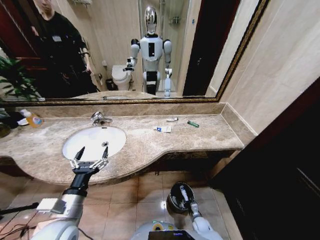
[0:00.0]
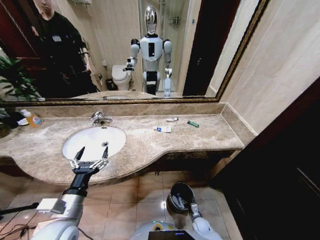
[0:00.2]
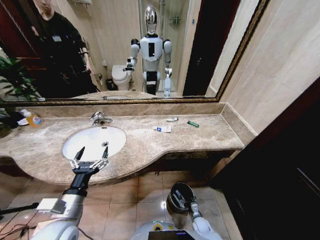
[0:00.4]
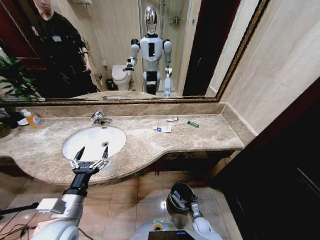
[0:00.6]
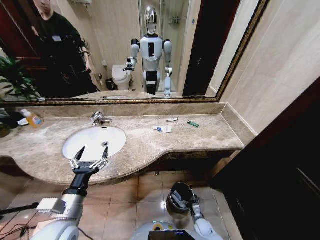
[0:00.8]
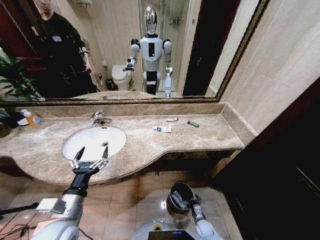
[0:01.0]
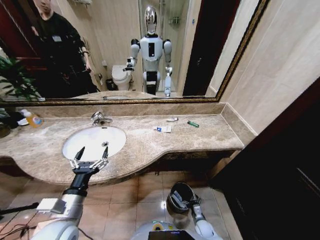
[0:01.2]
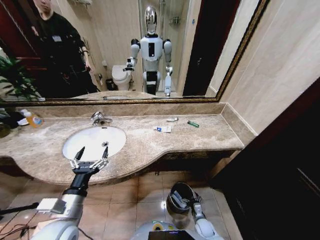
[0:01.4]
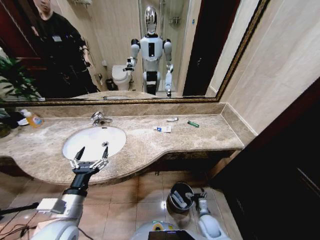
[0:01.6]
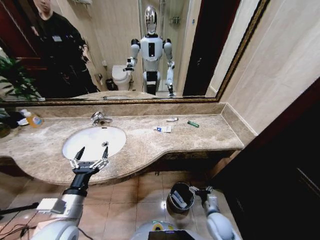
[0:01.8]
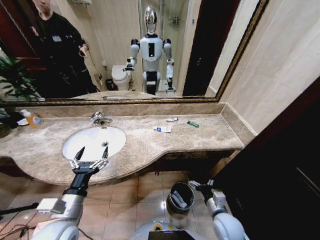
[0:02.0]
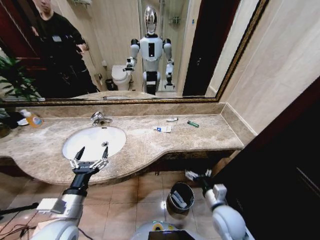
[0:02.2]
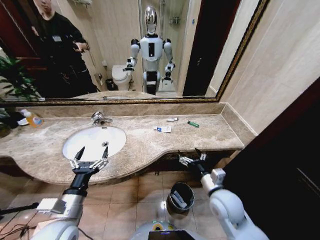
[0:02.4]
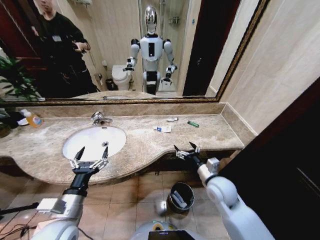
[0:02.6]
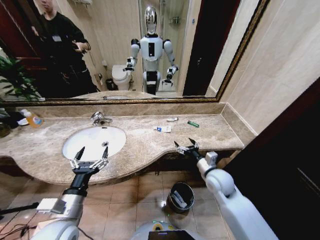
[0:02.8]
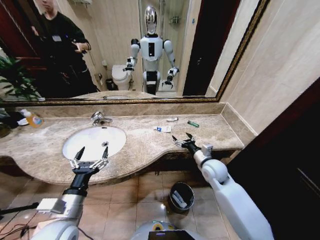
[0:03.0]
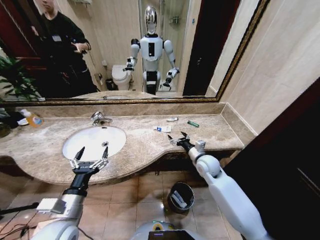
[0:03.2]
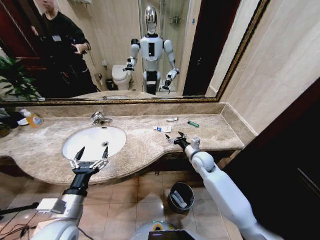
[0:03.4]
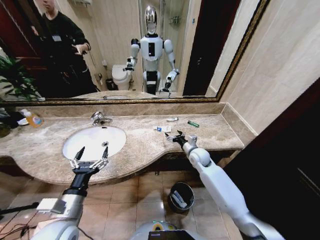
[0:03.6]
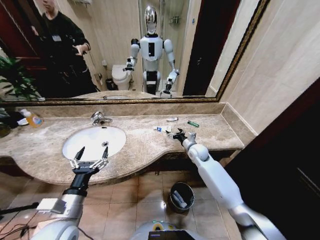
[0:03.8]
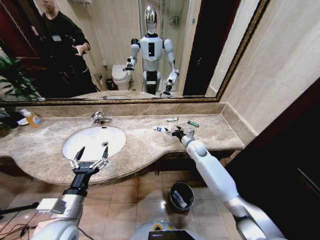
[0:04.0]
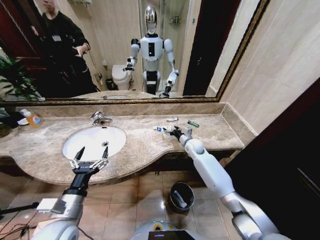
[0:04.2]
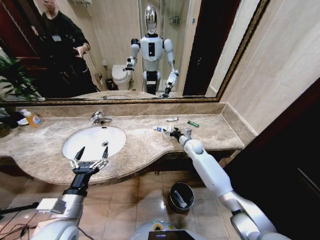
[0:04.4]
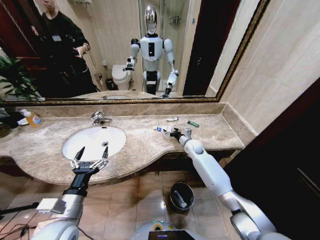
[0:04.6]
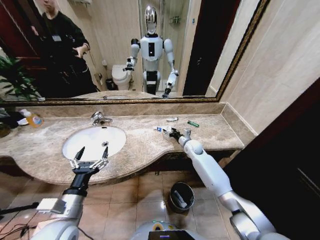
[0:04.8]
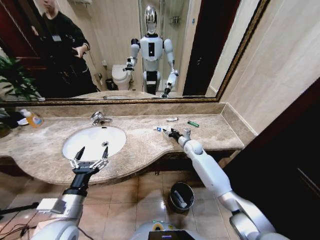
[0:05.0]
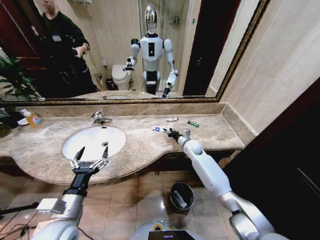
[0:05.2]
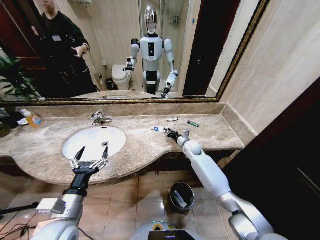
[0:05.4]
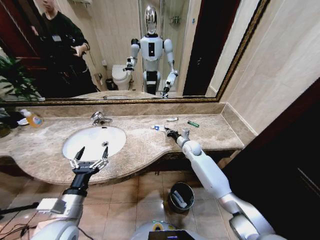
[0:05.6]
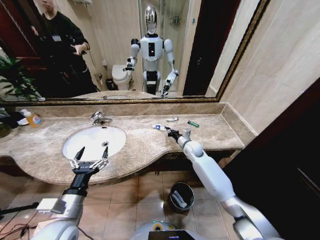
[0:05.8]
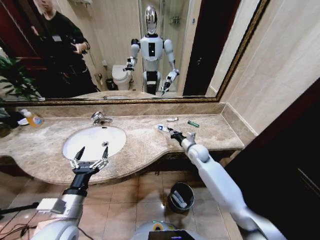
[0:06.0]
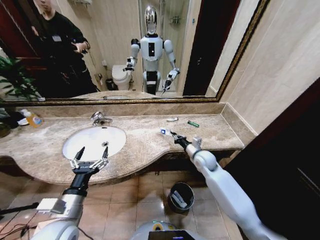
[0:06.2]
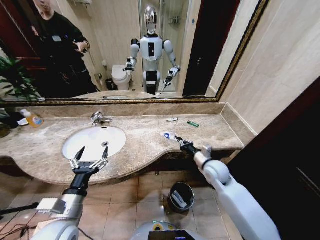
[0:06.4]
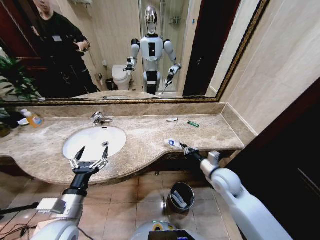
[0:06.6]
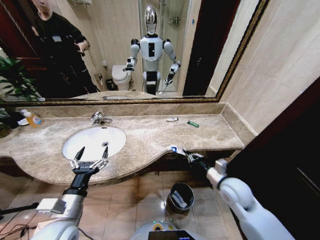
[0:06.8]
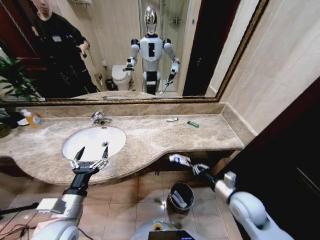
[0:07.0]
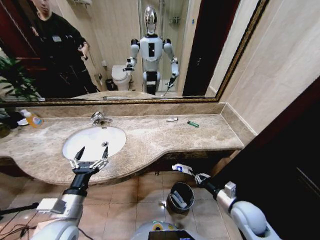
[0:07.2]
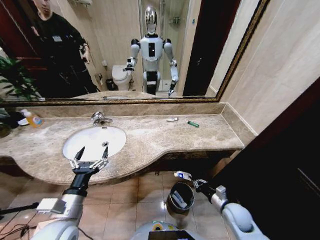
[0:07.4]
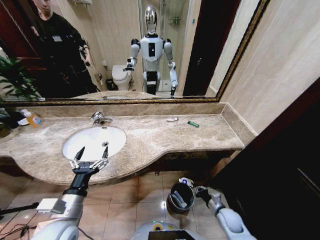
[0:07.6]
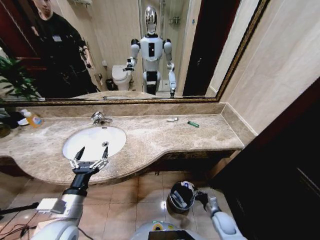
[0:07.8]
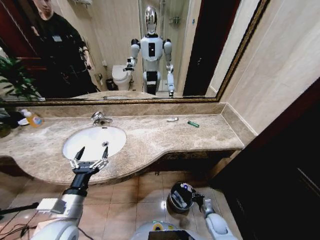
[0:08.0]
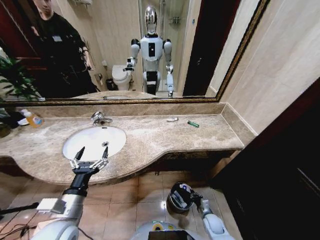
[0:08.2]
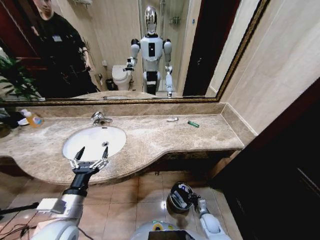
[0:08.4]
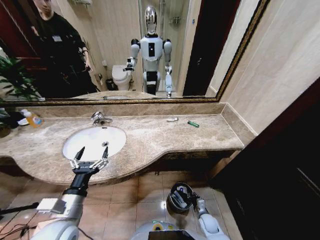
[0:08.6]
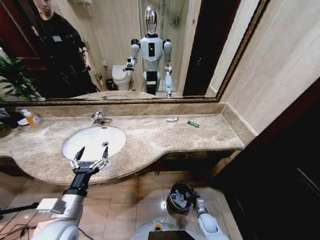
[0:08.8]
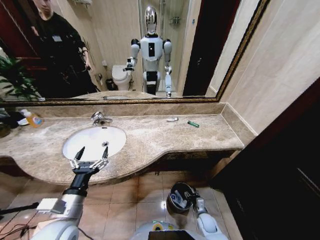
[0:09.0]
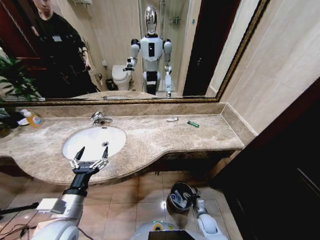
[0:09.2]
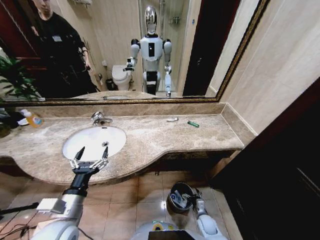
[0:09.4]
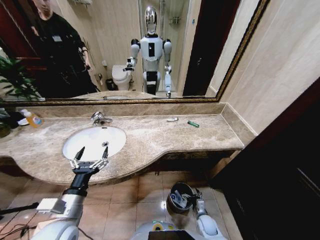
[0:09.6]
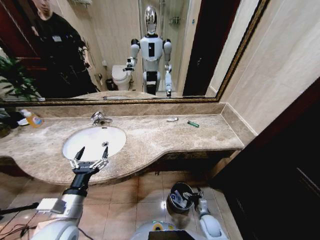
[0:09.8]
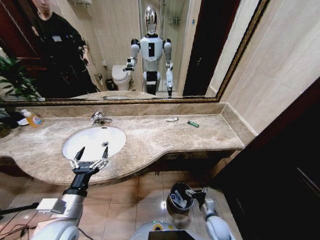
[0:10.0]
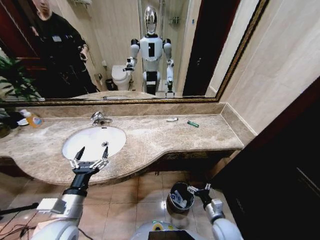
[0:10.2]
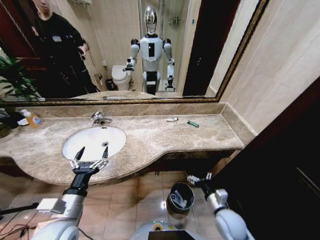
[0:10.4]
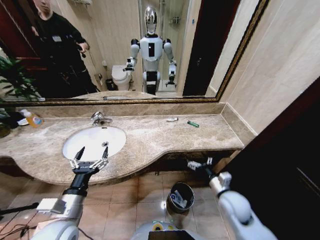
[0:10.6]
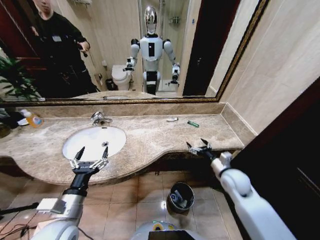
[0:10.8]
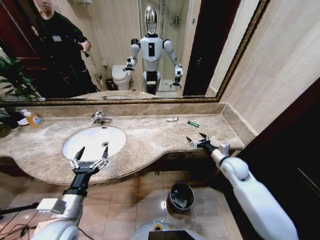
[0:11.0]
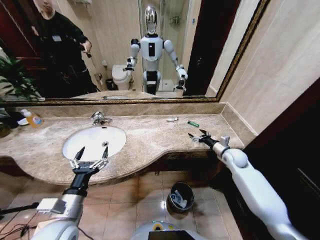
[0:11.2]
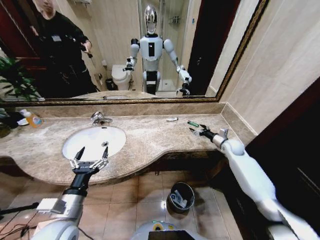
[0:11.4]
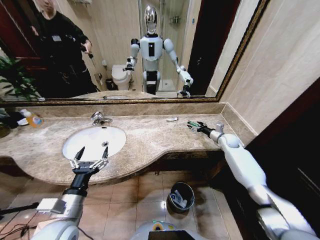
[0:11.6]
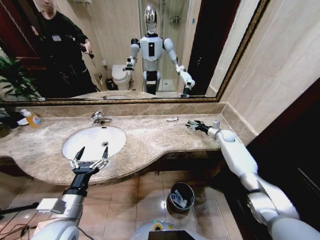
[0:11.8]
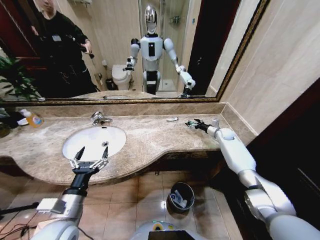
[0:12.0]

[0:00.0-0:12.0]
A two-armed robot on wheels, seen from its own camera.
Task of the whole recording: Pick up the trash from the sink and place it in the trash bin.
0:00.0 to 0:01.6: The right gripper moves upward, some 10 cm, and opens.
0:01.6 to 0:03.0: The right gripper is displaced upward and forward by some 30 cm.
0:03.0 to 0:04.4: The right gripper travels forward by some 15 cm.
0:04.4 to 0:06.0: The right gripper goes roughly 5 cm backward, and closes its fingers.
0:06.0 to 0:07.6: The right gripper shifts some 35 cm backward, downward and to the right.
0:07.6 to 0:09.0: The right gripper is displaced downward and to the left by about 15 cm, and opens.
0:09.0 to 0:10.4: The right gripper moves upward, about 20 cm, and opens up.
0:10.4 to 0:12.0: The right gripper shifts some 40 cm forward and to the right.

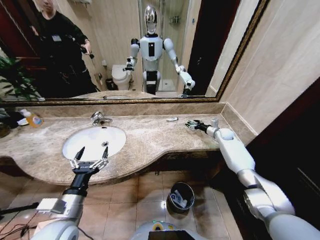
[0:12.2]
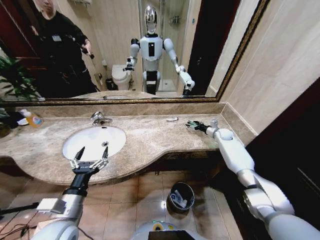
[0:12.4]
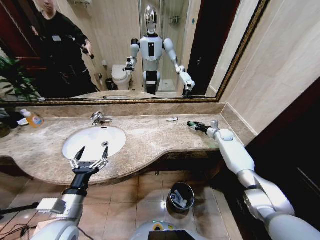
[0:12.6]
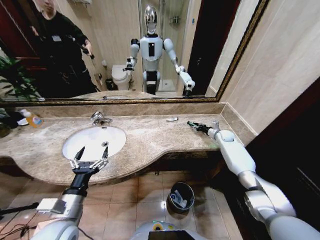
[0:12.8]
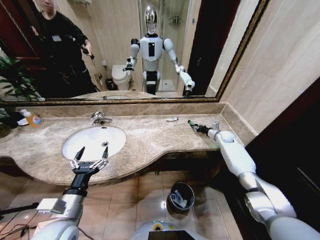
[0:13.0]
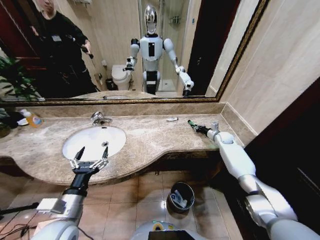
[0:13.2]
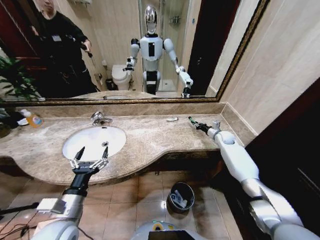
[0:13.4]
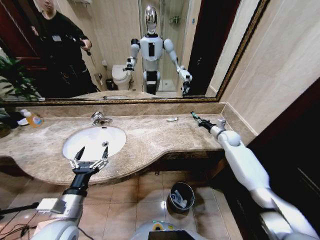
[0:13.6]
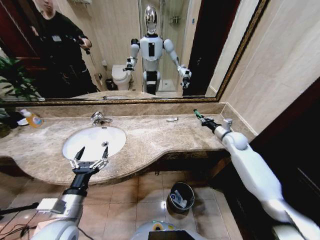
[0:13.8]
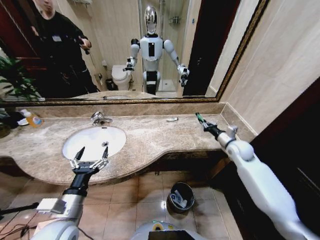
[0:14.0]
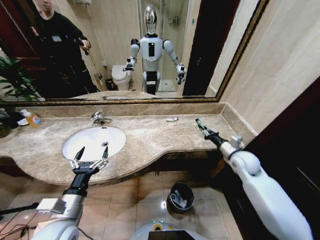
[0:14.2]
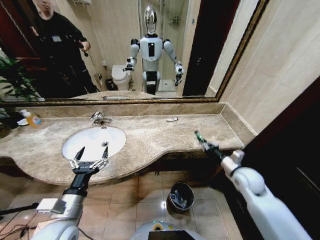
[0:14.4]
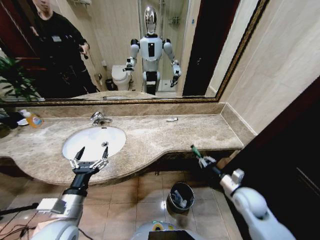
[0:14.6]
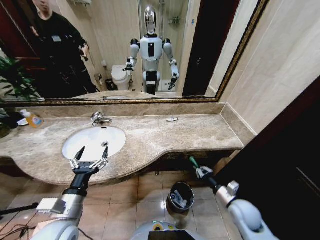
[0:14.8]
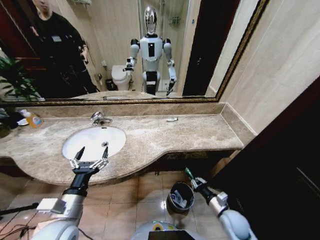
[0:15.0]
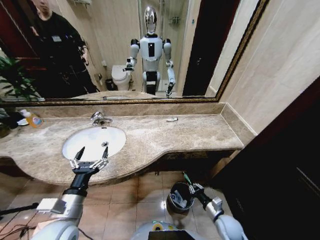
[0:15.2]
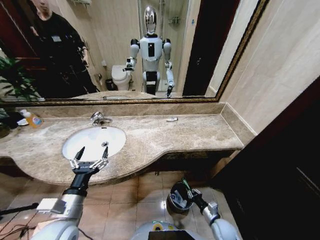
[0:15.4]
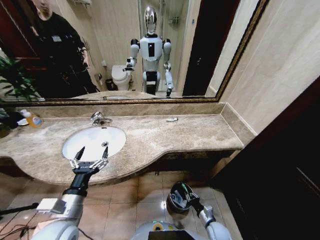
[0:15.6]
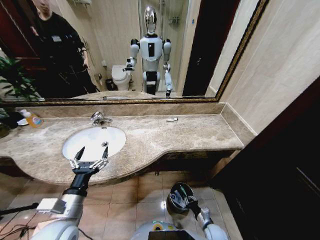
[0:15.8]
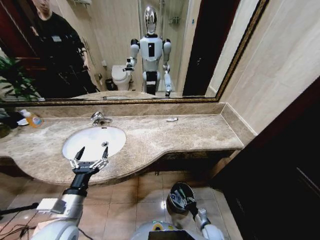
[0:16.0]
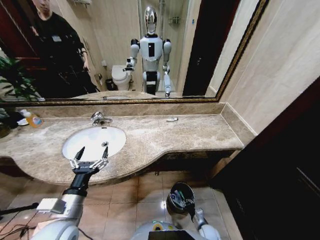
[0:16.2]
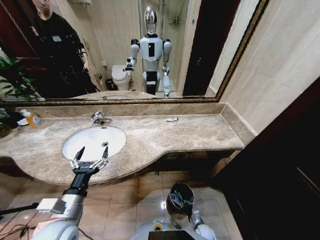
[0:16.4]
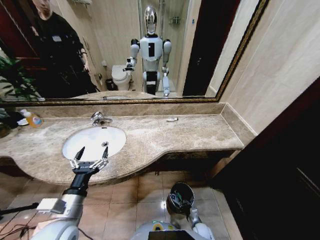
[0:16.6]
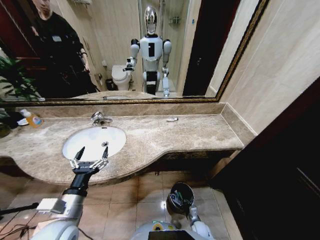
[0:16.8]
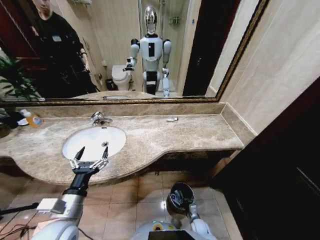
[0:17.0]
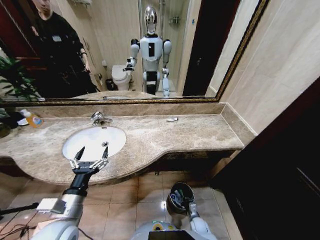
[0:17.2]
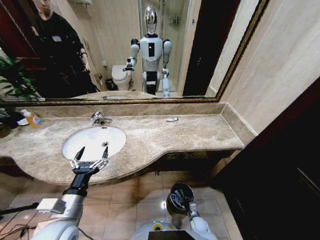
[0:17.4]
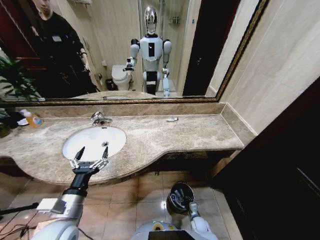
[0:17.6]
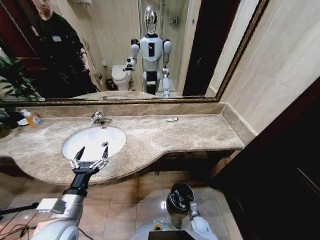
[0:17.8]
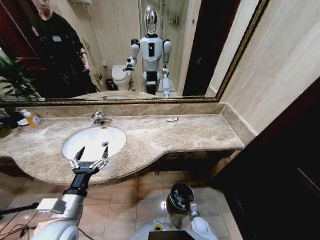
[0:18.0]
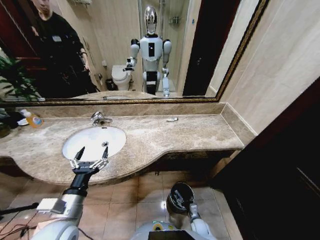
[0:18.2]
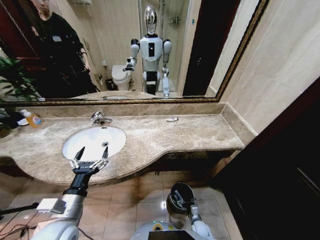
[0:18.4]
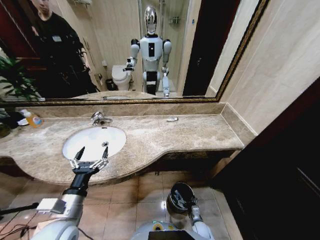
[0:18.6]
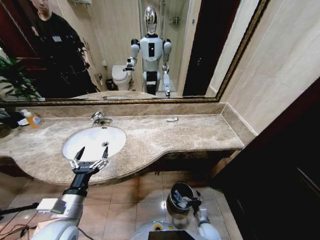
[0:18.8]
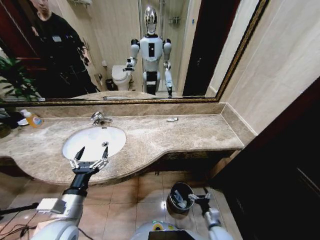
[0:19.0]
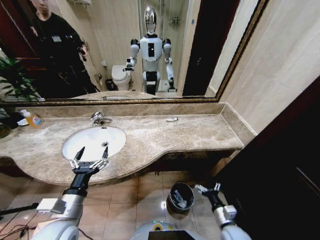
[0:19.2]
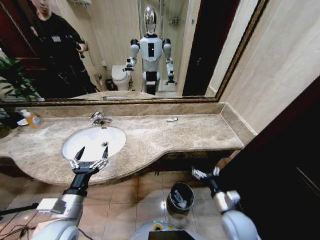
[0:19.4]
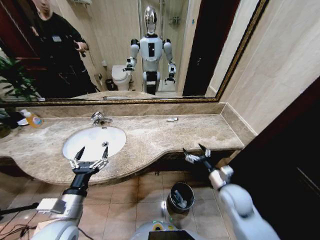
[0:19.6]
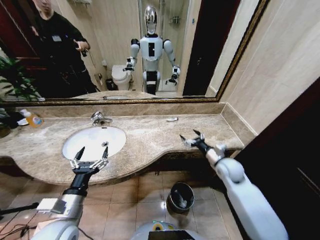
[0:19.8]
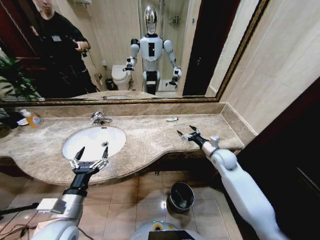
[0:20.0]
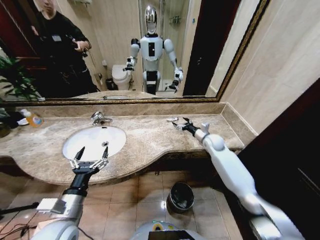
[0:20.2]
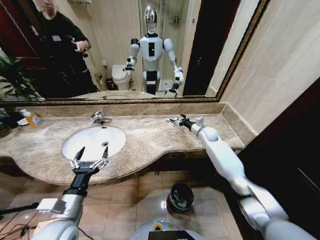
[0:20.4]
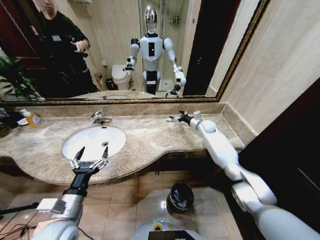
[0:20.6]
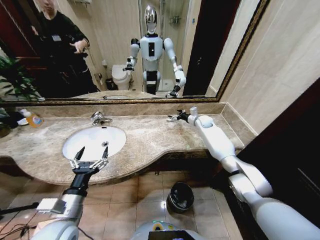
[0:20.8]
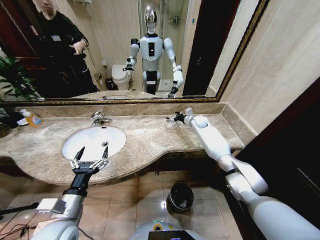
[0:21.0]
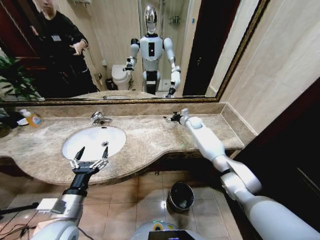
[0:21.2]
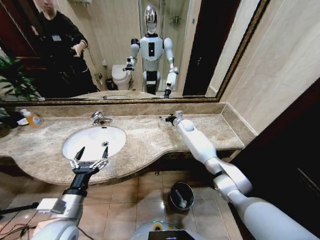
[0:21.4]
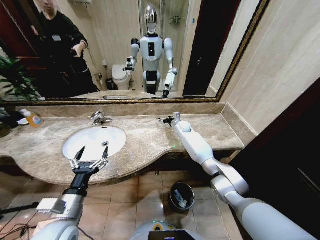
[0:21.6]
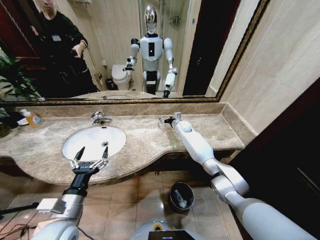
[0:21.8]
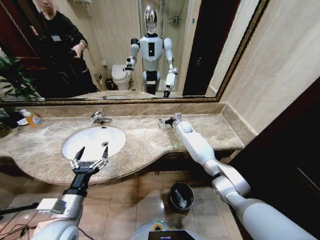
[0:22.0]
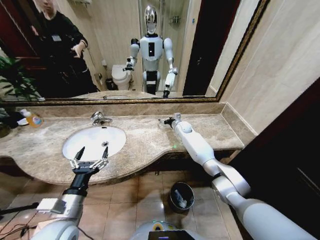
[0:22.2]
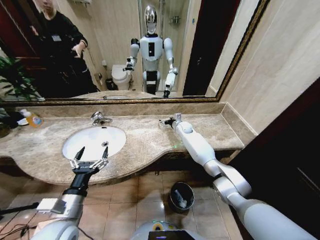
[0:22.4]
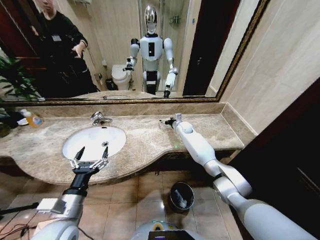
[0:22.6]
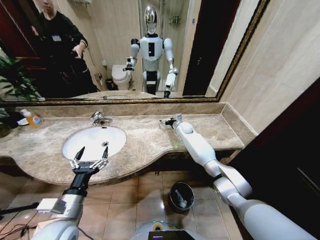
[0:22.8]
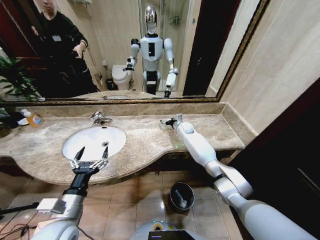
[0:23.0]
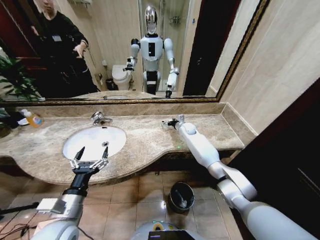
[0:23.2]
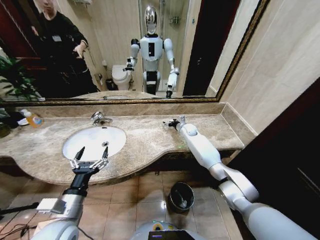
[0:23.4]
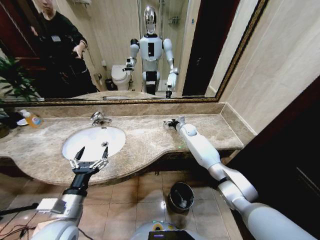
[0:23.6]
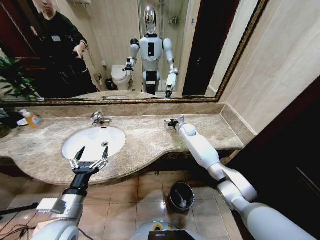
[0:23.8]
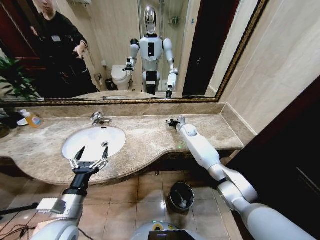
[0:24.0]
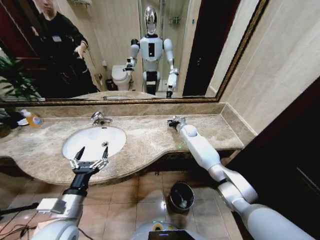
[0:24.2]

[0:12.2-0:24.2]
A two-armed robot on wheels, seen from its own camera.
Task of the whole recording: Pick up the trash from the sink and place it in the trash bin.
0:12.2 to 0:13.8: The right gripper goes about 15 cm backward and upward, and closes its fingers.
0:13.8 to 0:15.2: The right gripper heads backward and downward, covering approximately 40 cm.
0:15.2 to 0:16.6: The right gripper goes some 20 cm downward and to the left.
0:18.2 to 0:19.8: The right gripper shifts about 40 cm upward.
0:19.8 to 0:21.2: The right gripper travels forward by approximately 30 cm.
0:21.2 to 0:22.6: The right gripper heads to the left, covering about 5 cm.
0:22.6 to 0:24.2: The right gripper closes up.
